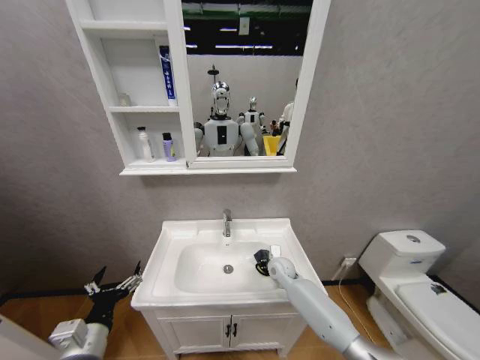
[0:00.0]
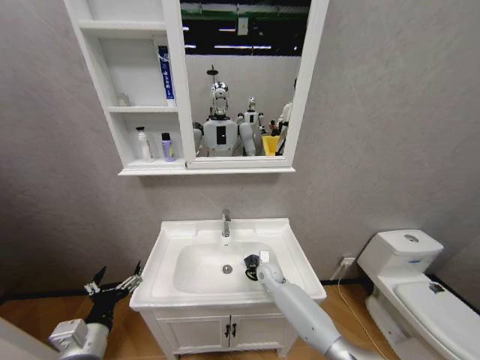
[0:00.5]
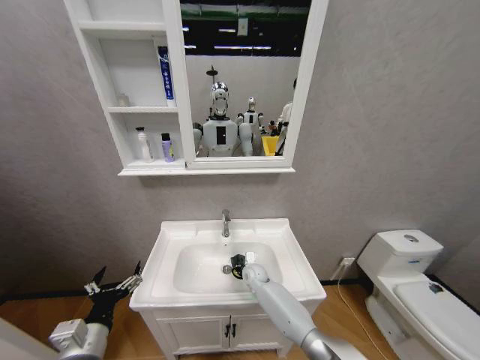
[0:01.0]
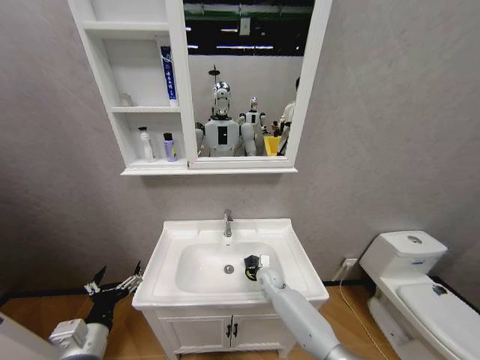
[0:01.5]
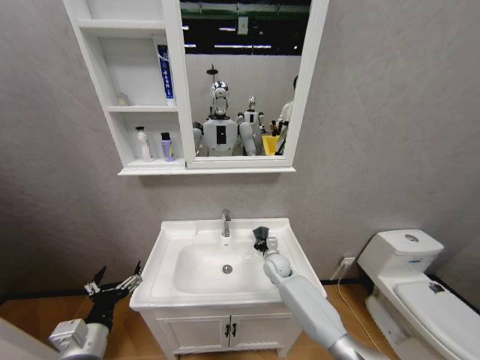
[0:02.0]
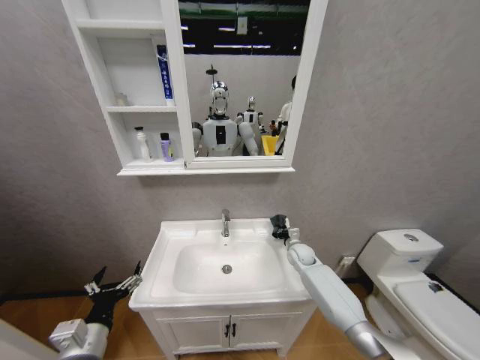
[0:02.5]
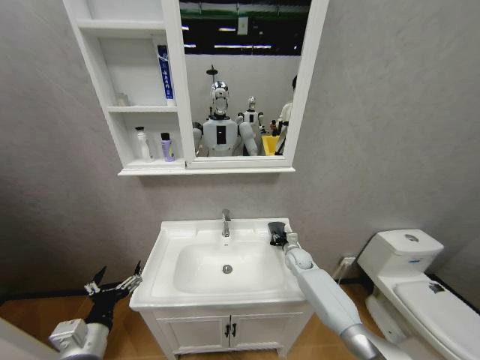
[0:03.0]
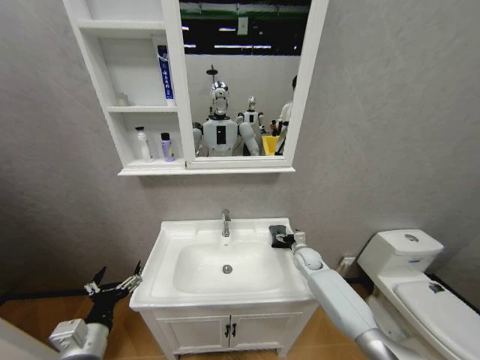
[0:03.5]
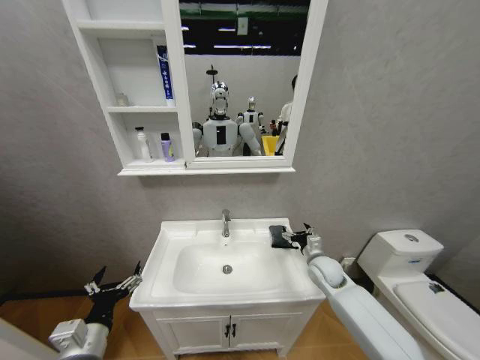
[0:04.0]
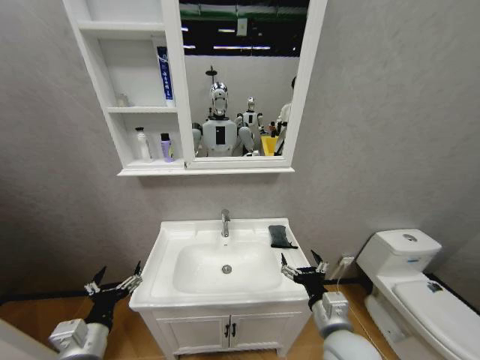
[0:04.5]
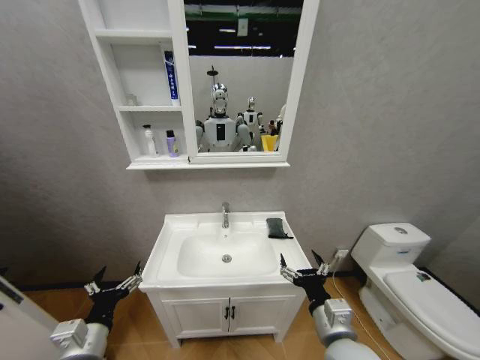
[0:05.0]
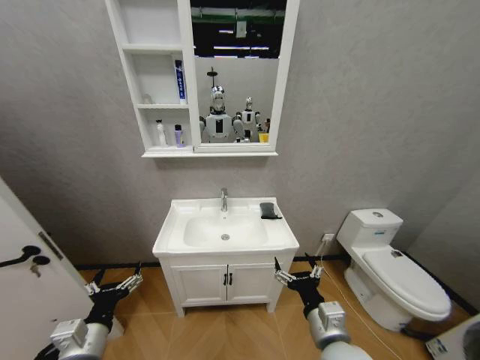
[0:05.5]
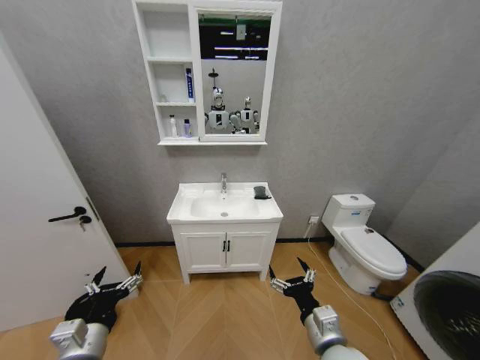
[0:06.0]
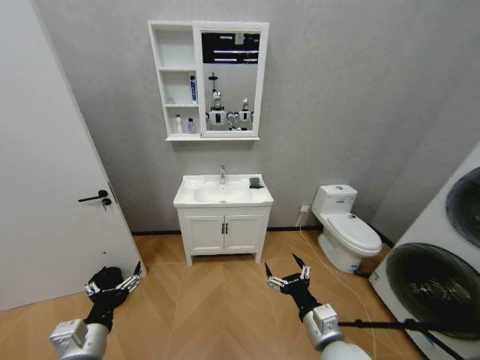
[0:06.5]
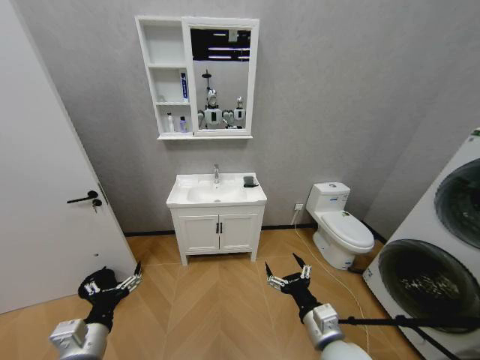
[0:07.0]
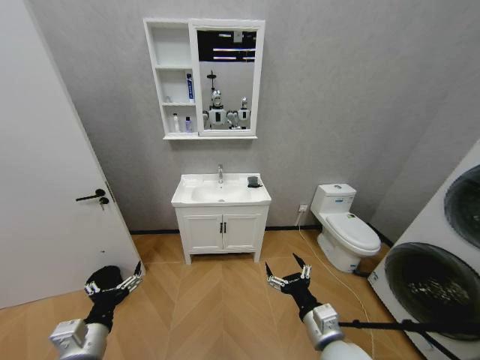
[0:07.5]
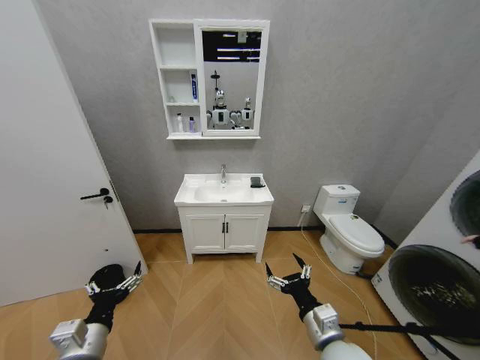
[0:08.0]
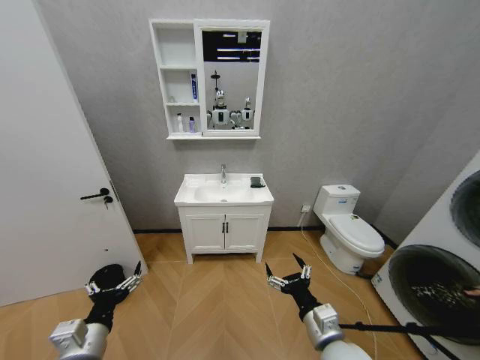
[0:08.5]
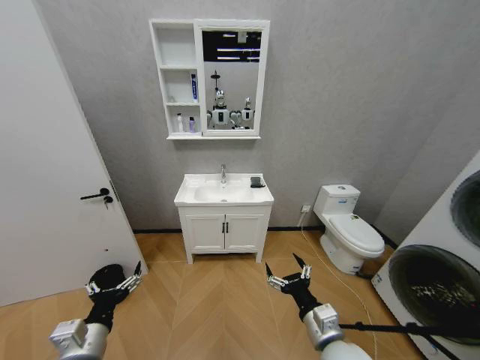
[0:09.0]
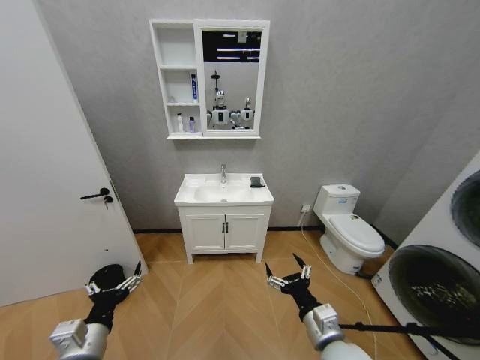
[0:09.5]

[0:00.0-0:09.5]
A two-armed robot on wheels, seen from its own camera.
Task of the whole recording: Move facial cleanser and shampoo from washbasin to cabinet, then wipe washbasin with towel.
0:00.0 to 0:02.0: The right gripper goes to the left and returns, approximately 10 cm each way.
0:02.0 to 0:04.0: The right gripper travels to the right and upward by approximately 15 cm, and opens.
0:04.0 to 0:05.5: The right gripper travels backward and to the left by roughly 25 cm.
0:07.5 to 0:09.5: Both grippers stay put.

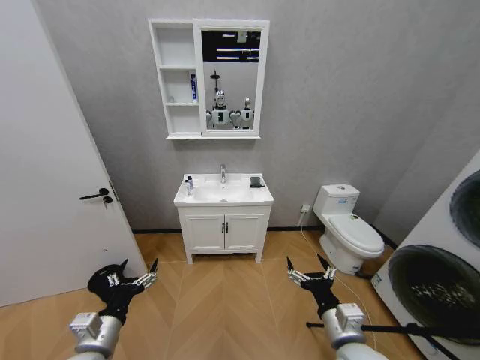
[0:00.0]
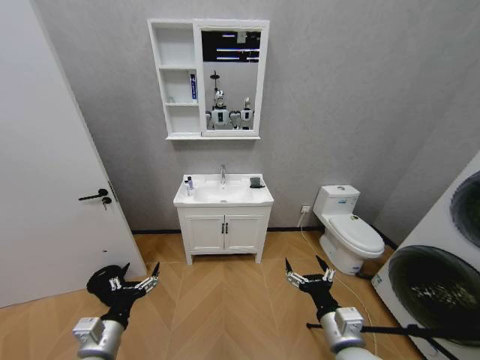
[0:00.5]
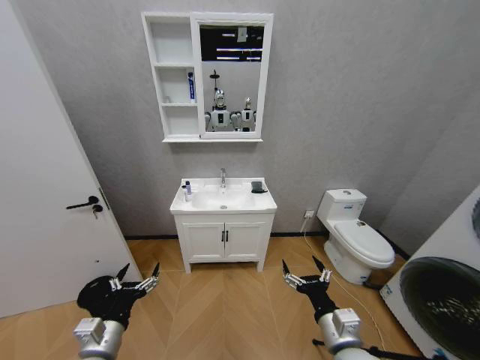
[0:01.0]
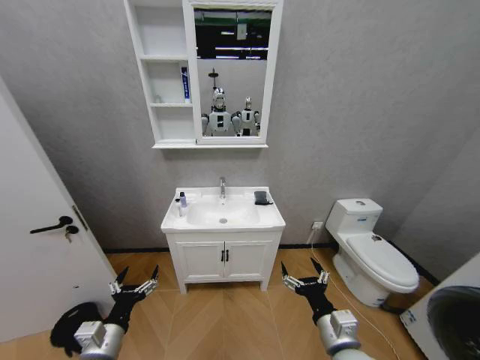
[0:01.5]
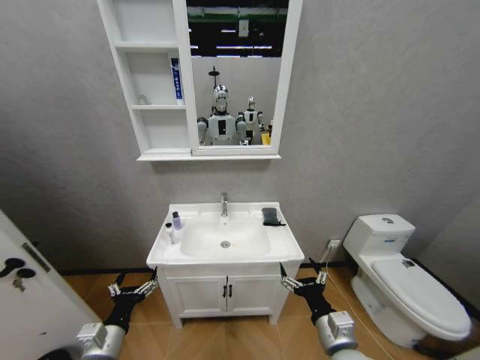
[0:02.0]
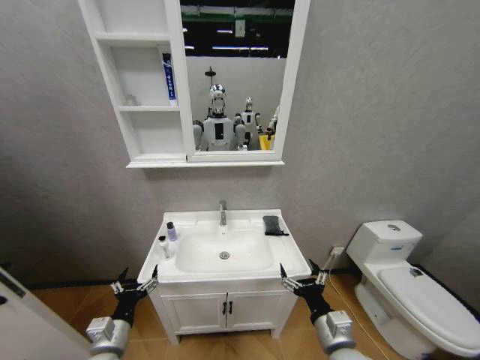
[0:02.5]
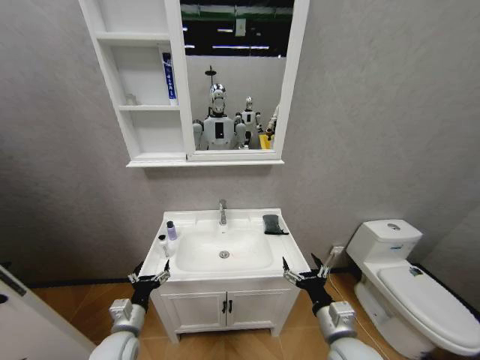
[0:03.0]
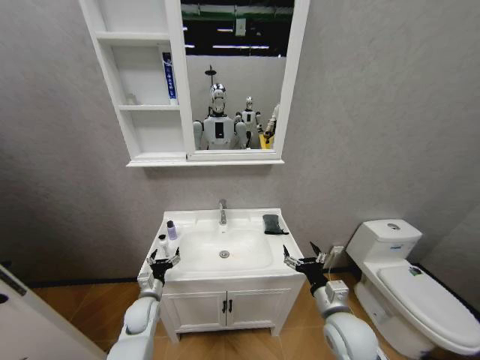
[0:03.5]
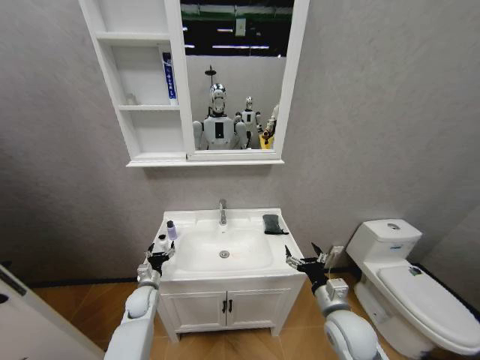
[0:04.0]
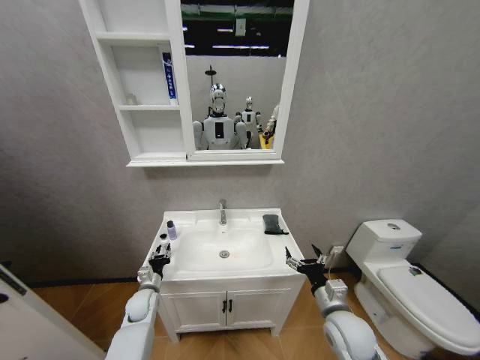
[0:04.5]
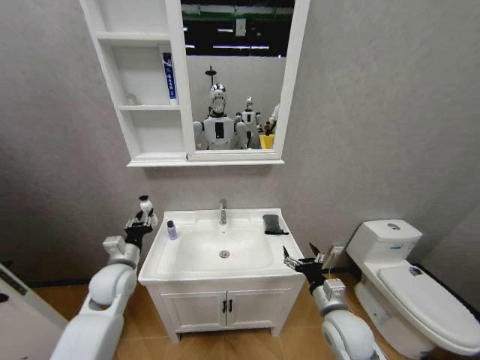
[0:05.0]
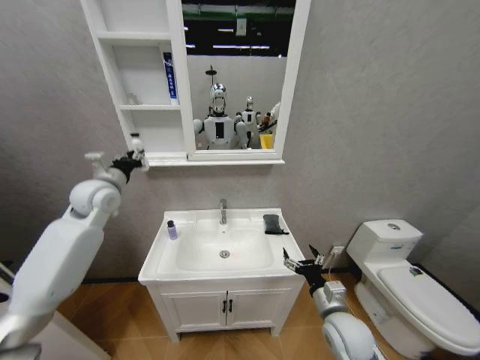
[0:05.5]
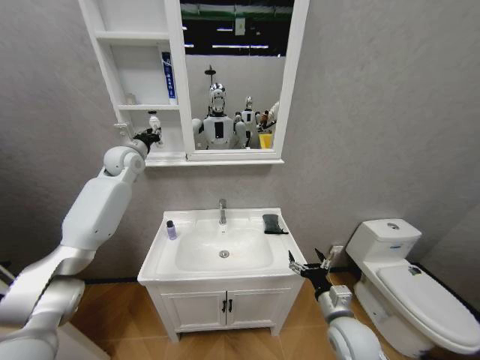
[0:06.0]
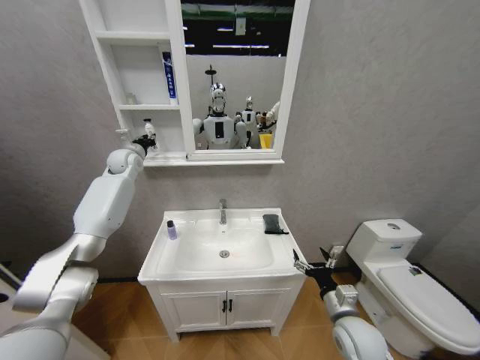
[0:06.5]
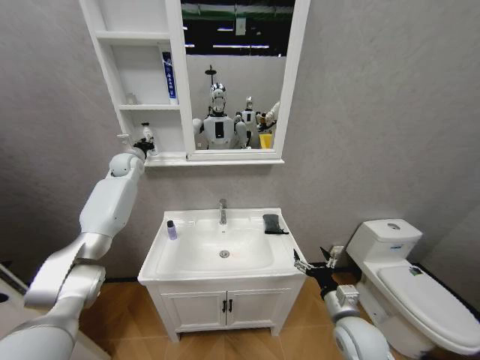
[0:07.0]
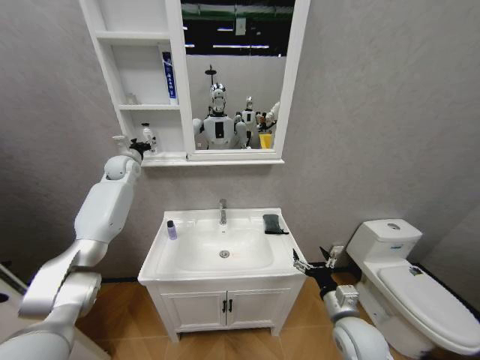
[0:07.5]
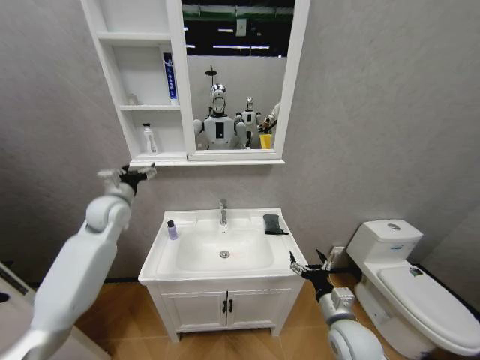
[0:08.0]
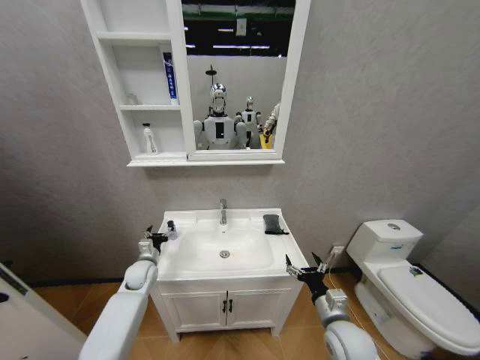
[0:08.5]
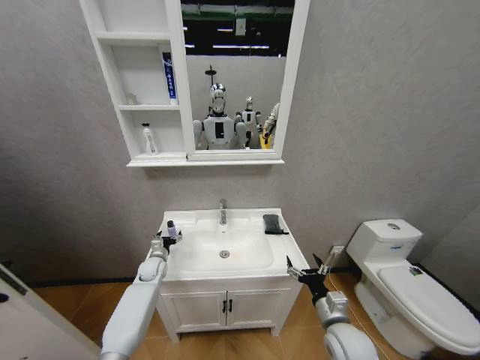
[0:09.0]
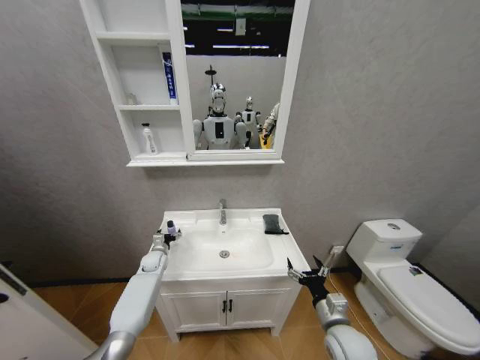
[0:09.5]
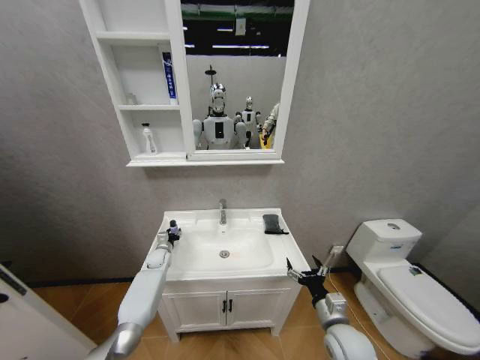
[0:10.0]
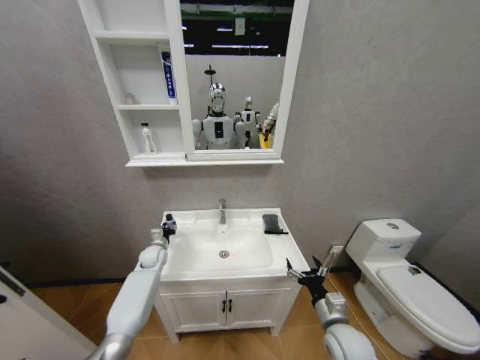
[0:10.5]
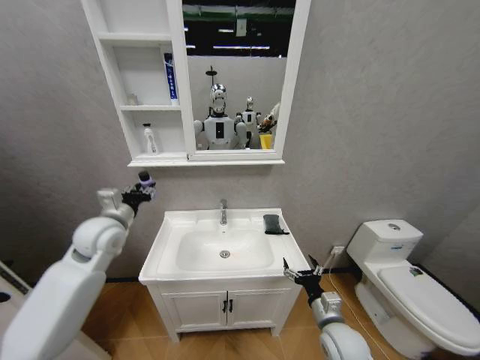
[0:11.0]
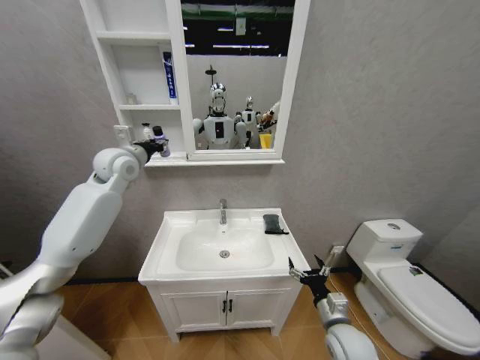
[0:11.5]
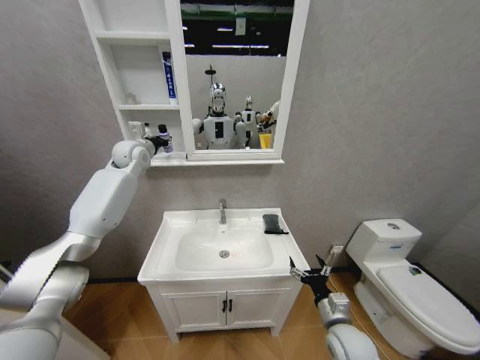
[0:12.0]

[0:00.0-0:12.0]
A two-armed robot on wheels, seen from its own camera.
Task of the whole recording: Move facial cleanser and shampoo from washbasin to cabinet, then wipe washbasin with towel.
0:02.0 to 0:04.0: The right gripper heads forward, covering roughly 10 cm. Meanwhile the left gripper shifts roughly 25 cm forward and downward.
0:04.0 to 0:06.0: The left gripper goes some 50 cm upward and forward, and closes up.
0:06.0 to 0:08.0: The left gripper moves downward and backward, about 15 cm, and opens its fingers.
0:08.0 to 0:10.0: The left gripper moves downward, some 30 cm, and closes up.
0:10.0 to 0:12.0: The left gripper is displaced upward by roughly 40 cm.

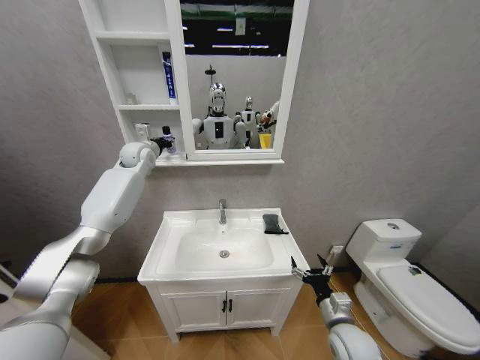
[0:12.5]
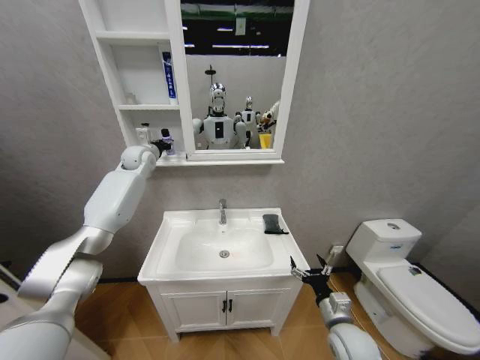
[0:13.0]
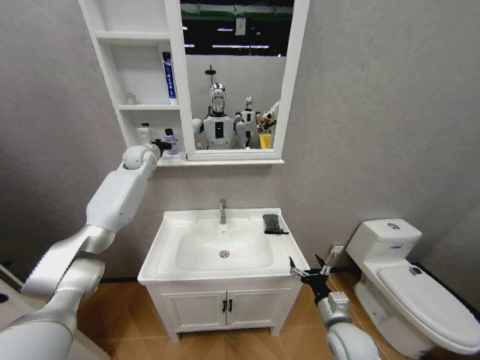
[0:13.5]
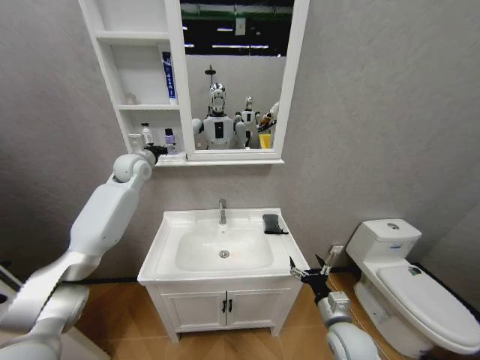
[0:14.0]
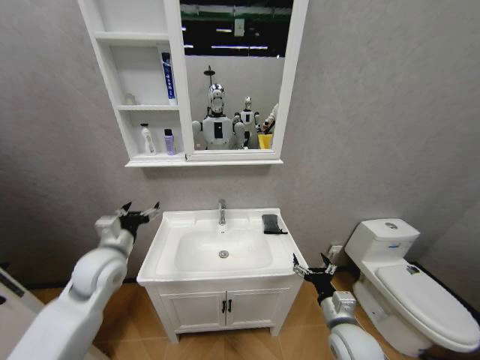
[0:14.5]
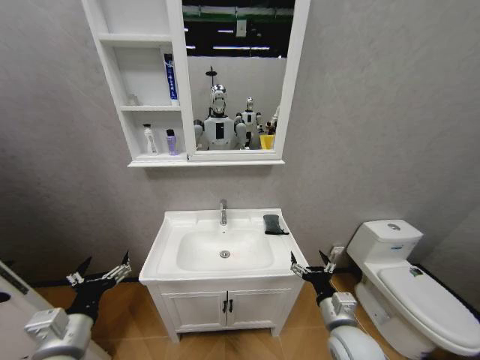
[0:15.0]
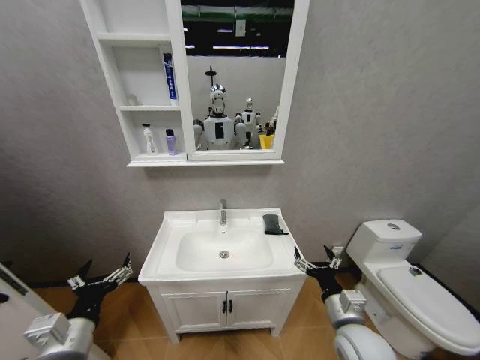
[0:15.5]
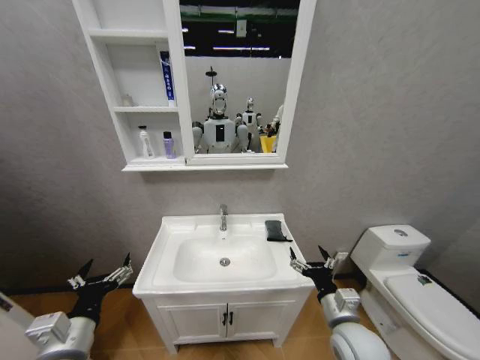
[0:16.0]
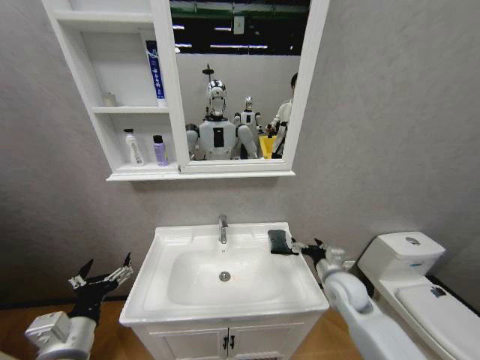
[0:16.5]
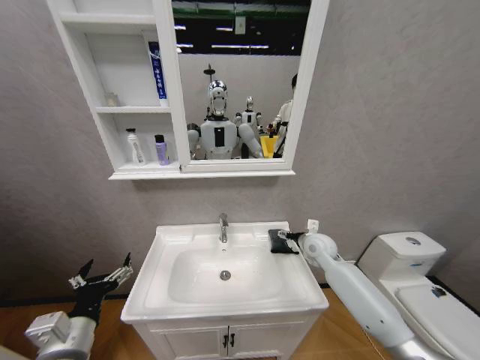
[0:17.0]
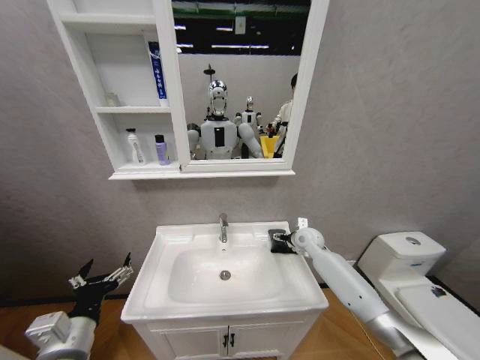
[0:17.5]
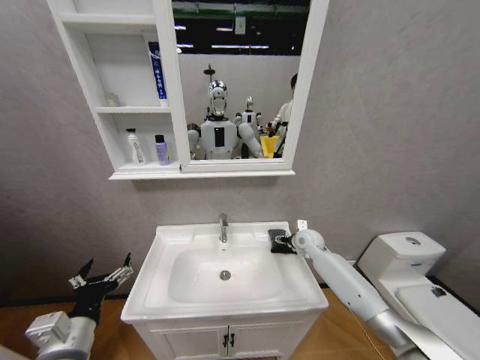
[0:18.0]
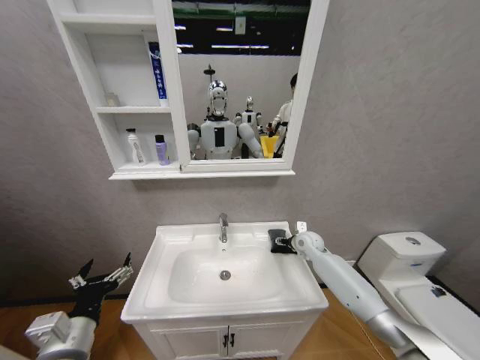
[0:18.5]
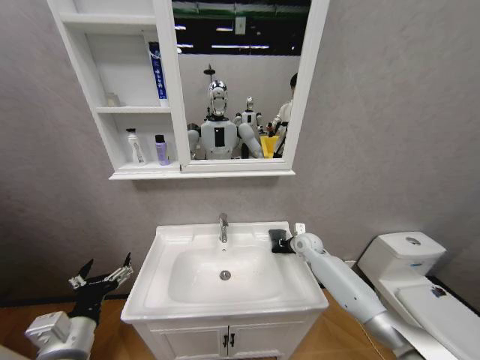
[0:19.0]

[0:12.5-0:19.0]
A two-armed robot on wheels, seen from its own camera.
Task of the whole recording: Move facial cleanser and shampoo from washbasin to cabinet, then wipe washbasin with towel.
0:12.5 to 0:14.5: The left gripper heads backward and downward, covering some 35 cm, and opens.
0:14.5 to 0:17.0: The right gripper travels forward by roughly 25 cm, while the left gripper shifts approximately 20 cm backward.
0:17.0 to 0:19.0: The right gripper goes some 5 cm downward, and closes up.
